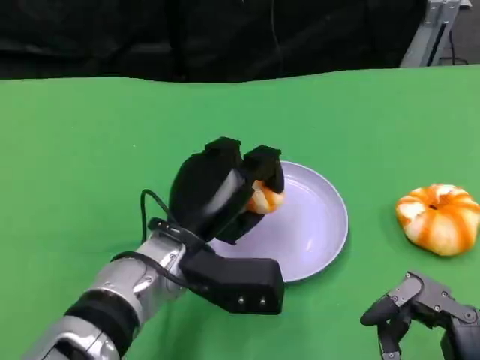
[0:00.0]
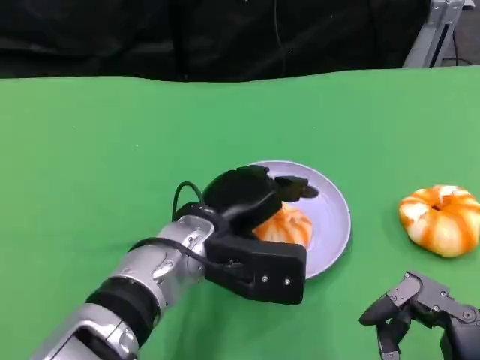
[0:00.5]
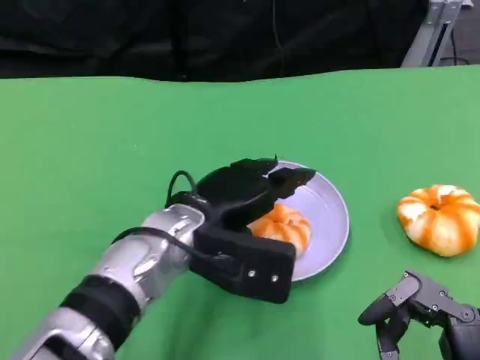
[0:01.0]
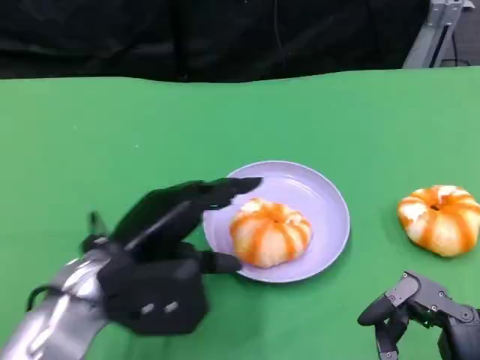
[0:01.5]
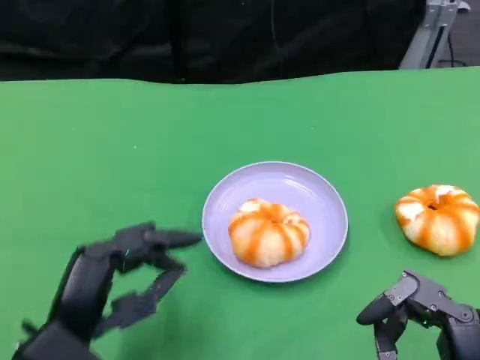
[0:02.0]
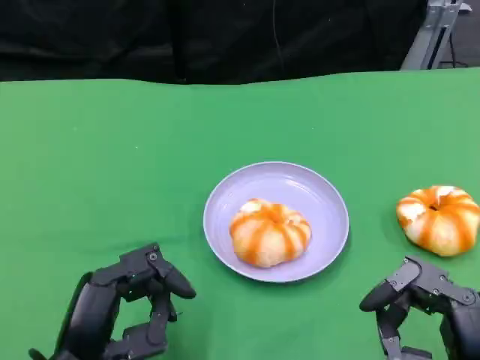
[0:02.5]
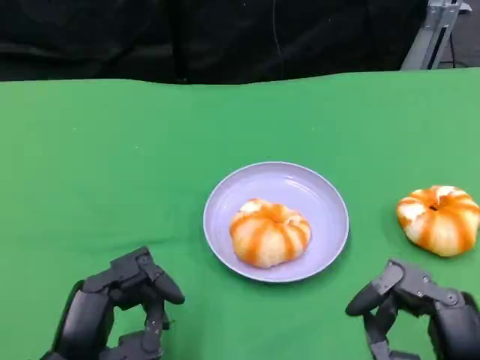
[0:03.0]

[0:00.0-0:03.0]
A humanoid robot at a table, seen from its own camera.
Task of the whole recording: Grasp the bread from the table and place it into the plate.
0:00.0 to 0:01.5: The left hand is displaced to the left by roughly 10 cm.
0:01.5 to 0:03.0: The left hand travels backward by approximately 10 cm.

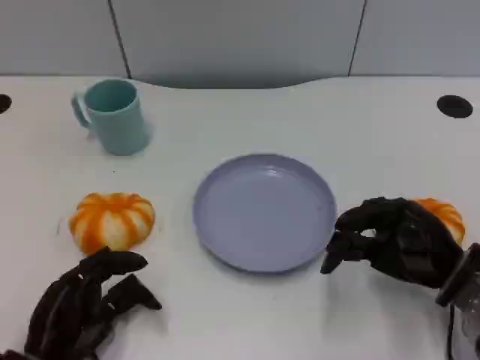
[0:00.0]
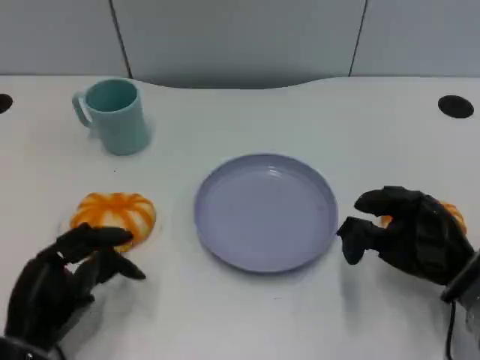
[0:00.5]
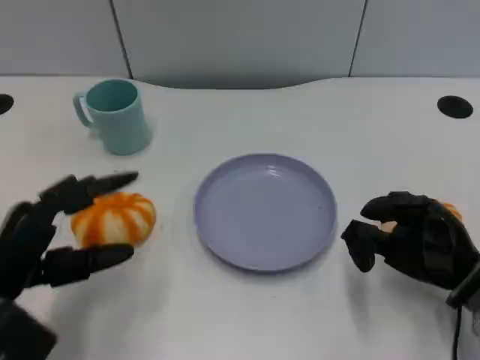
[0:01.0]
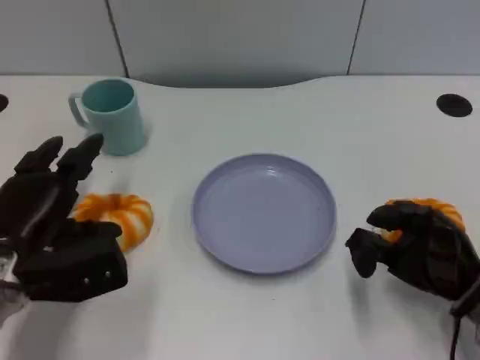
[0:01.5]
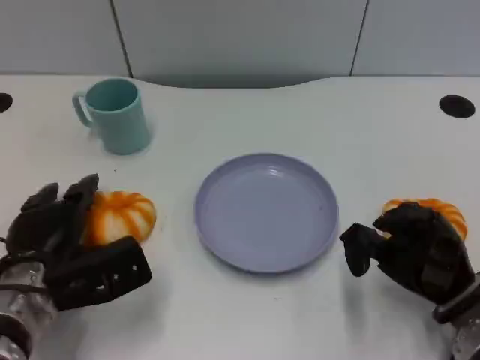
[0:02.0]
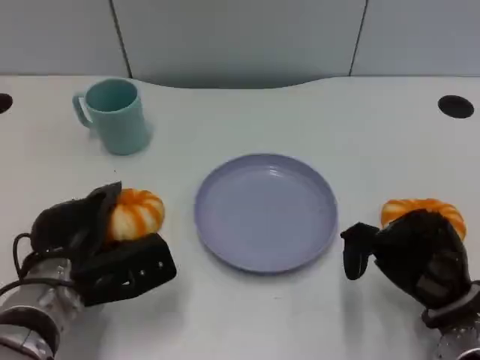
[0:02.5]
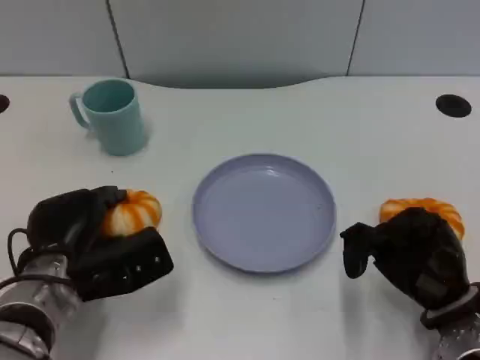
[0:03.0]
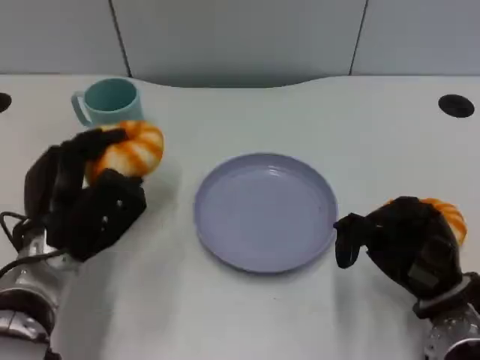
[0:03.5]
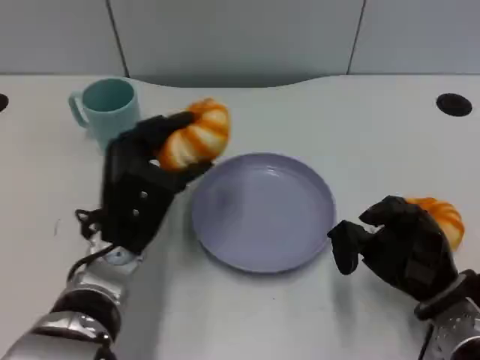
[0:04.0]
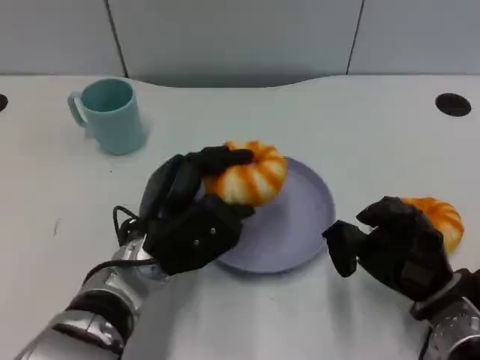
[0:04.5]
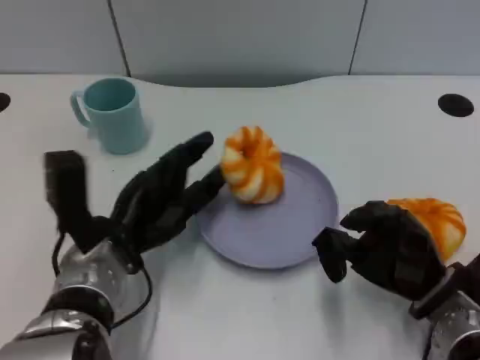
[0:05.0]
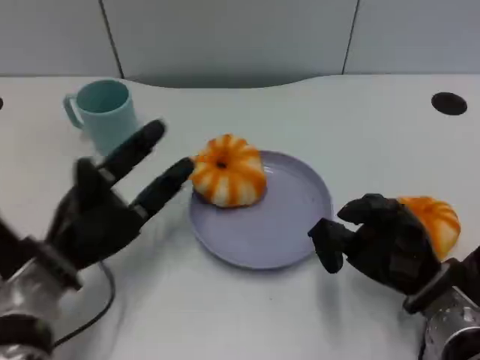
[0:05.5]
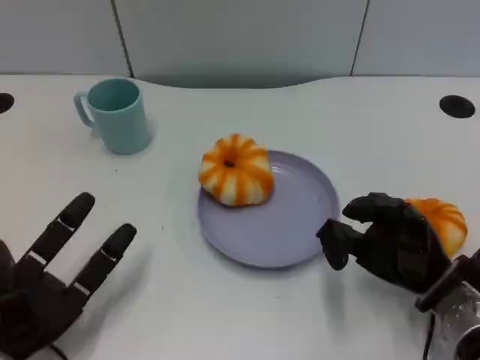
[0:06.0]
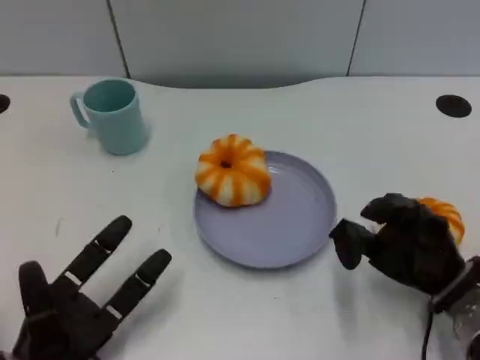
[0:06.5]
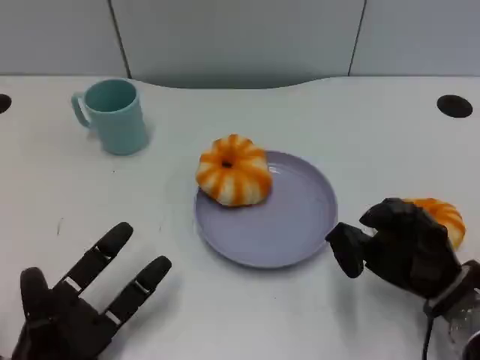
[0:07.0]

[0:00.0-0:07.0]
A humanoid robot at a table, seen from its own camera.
Task of the whole recording: Grasp the bread from the table and place it into the plate.
0:00.0 to 0:02.0: The left hand shifts about 10 cm forward.
0:05.0 to 0:07.0: The left hand shifts about 15 cm backward, to the left and downward.

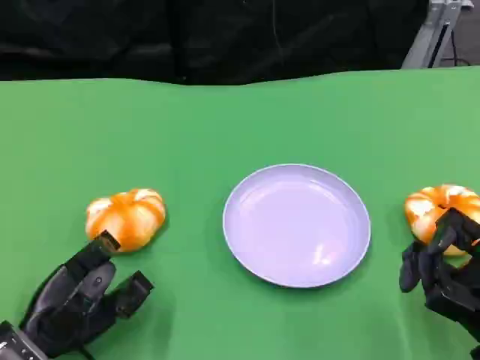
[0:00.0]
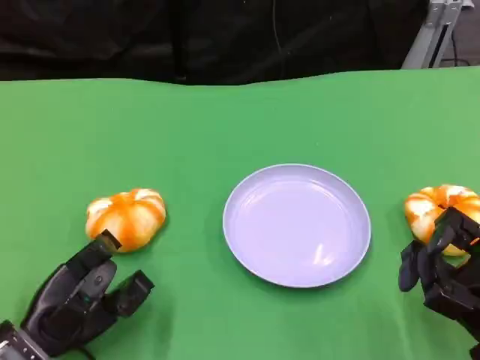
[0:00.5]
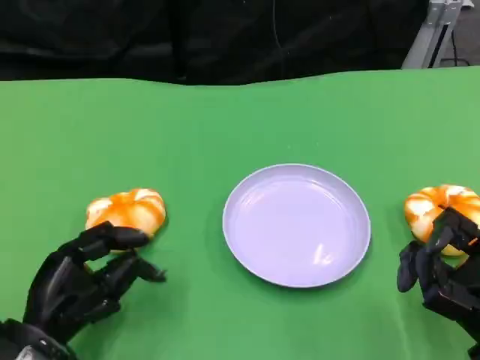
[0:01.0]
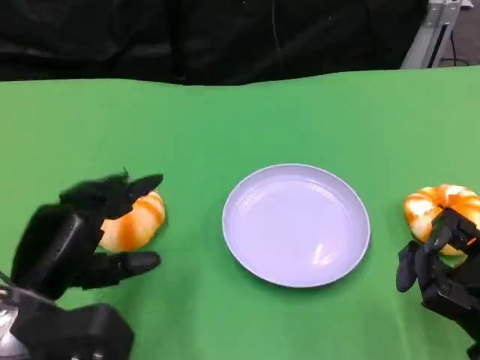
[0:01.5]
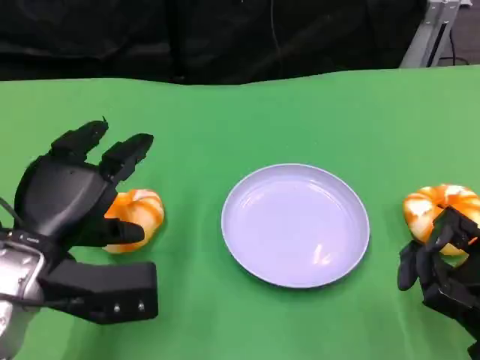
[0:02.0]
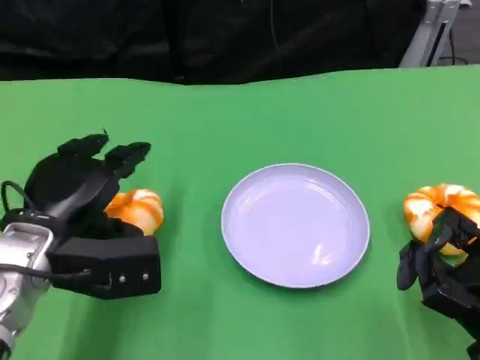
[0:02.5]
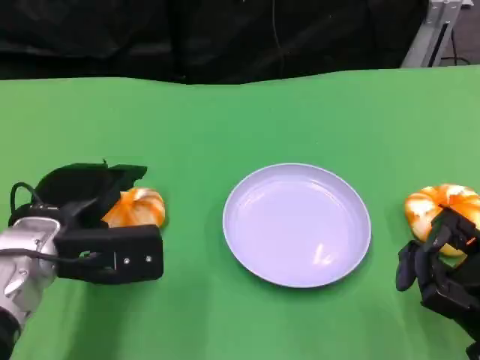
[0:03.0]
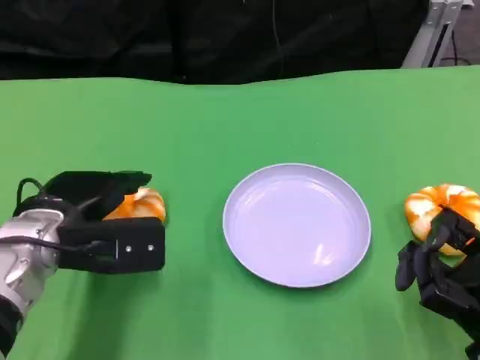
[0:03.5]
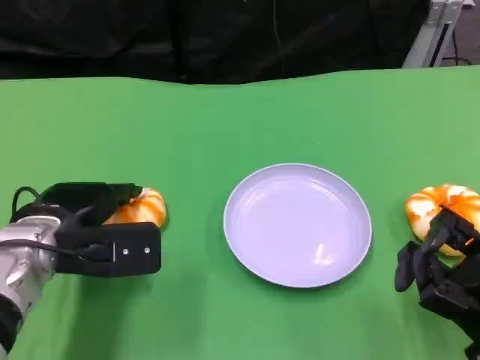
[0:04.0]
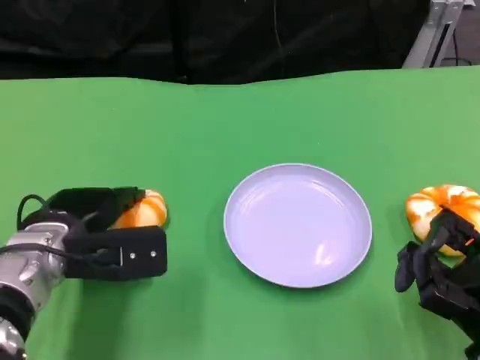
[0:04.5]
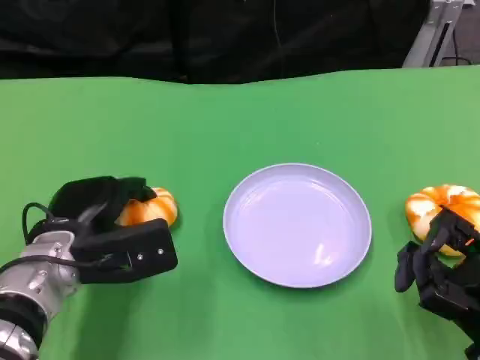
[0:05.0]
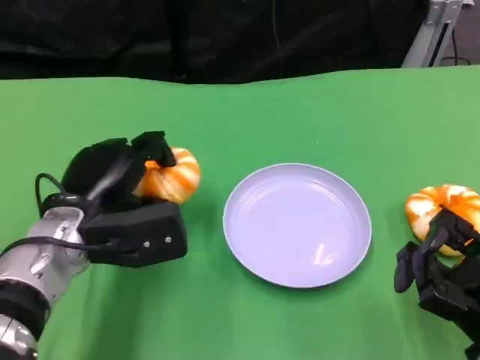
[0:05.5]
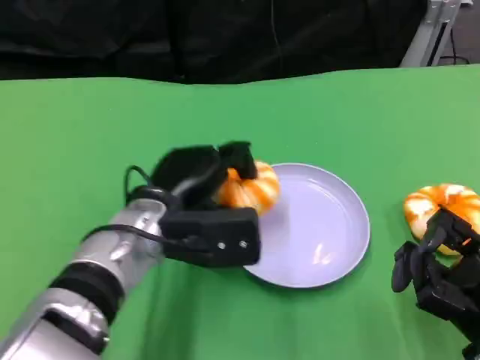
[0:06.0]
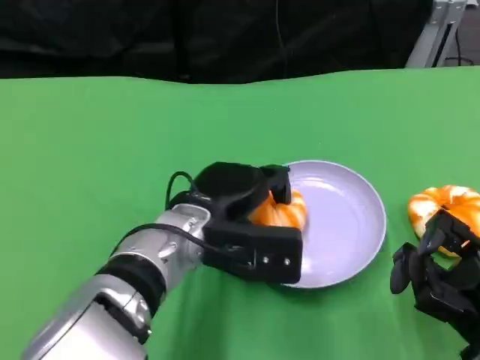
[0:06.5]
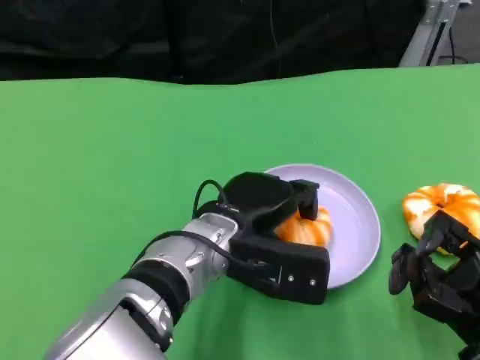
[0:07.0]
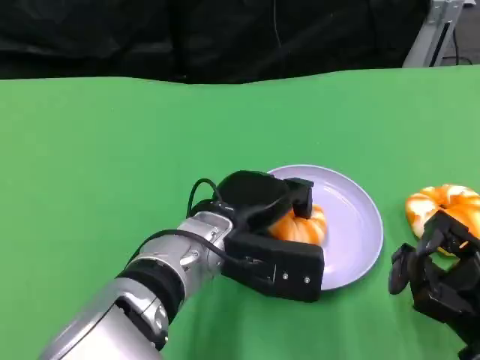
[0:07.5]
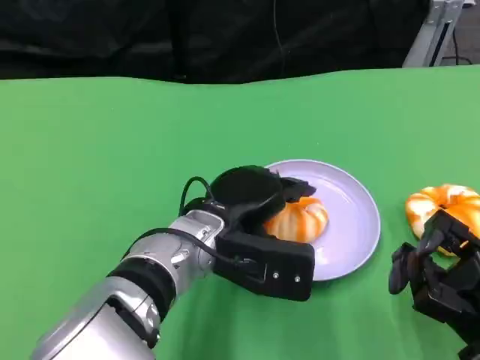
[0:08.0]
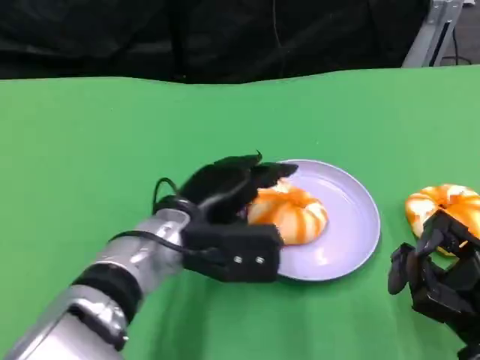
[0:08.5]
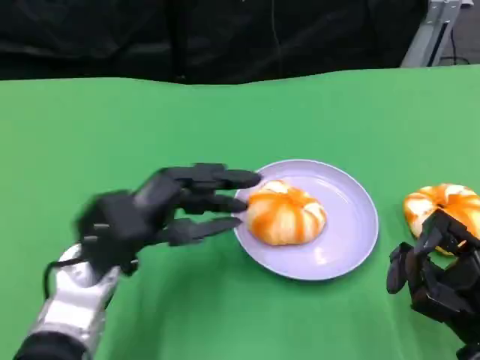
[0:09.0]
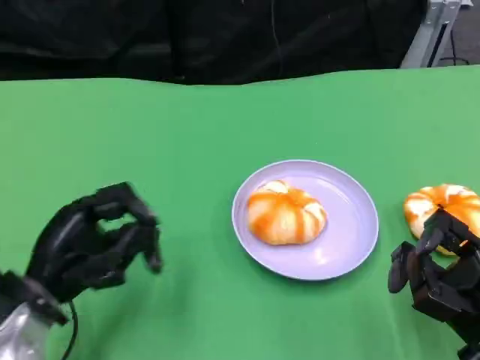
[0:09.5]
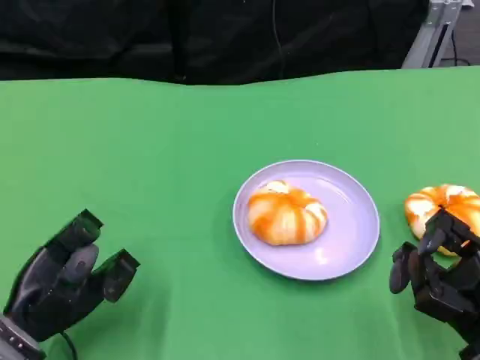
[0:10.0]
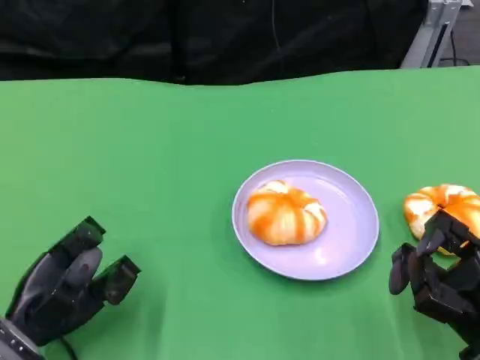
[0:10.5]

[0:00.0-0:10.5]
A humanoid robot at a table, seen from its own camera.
Task of the whole recording: Grasp the bread from the table and place it into the plate.
0:00.0 to 0:02.0: The left hand travels upward by approximately 10 cm.
0:02.0 to 0:04.0: The left hand changes place by about 5 cm.
0:04.0 to 0:06.5: The left hand moves to the right, some 15 cm.
0:06.5 to 0:08.5: The hands make only small movements.
0:08.5 to 0:10.5: The left hand heads to the left, downward and backward, covering some 20 cm.

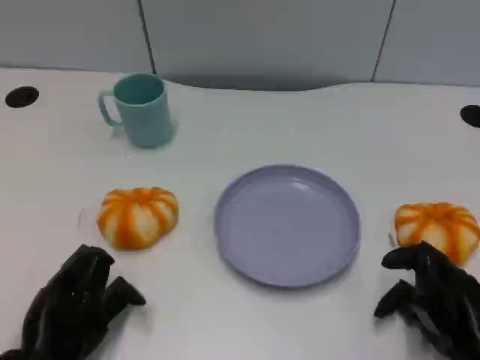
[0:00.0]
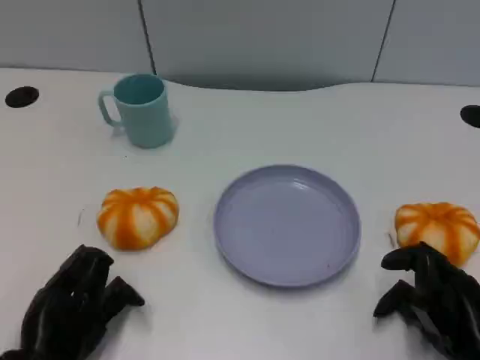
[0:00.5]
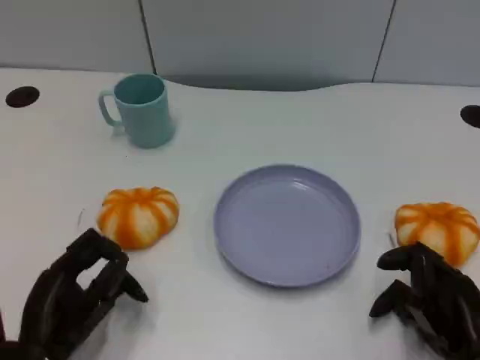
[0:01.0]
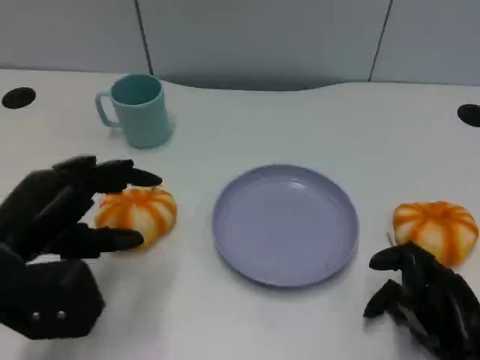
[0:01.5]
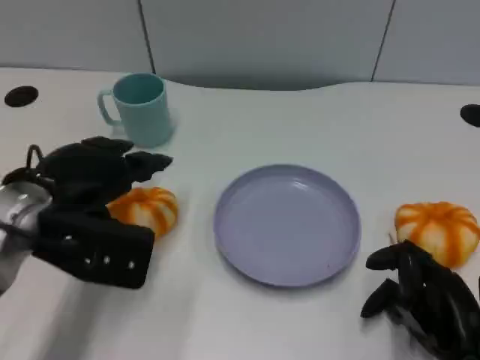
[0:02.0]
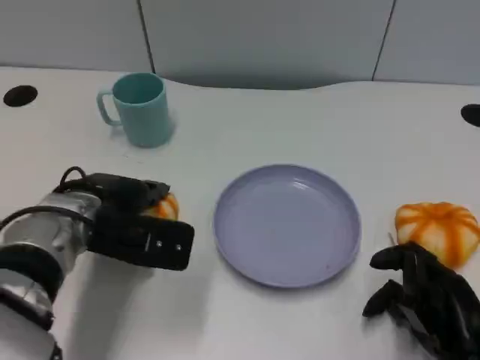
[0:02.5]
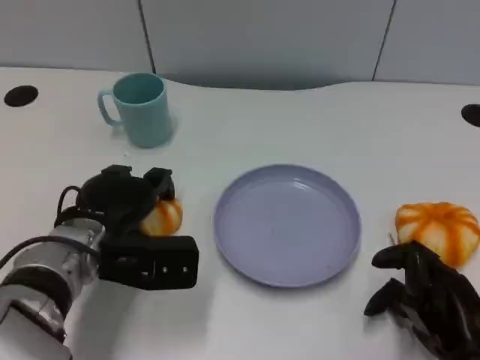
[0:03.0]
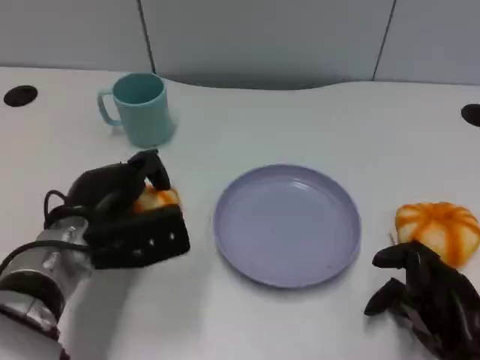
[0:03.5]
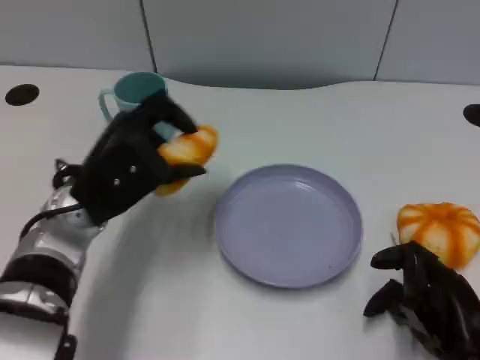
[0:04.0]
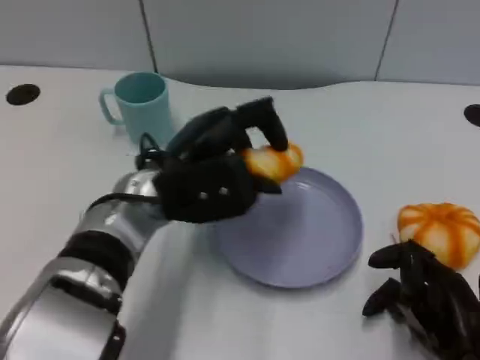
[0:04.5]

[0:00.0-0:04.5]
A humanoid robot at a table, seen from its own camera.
Task of the whole recording: Grasp the bread from the table and place it into the plate.
0:00.0 to 0:02.0: The left hand moves upward and forward, some 15 cm.
0:02.0 to 0:04.5: The left hand is displaced to the right by approximately 10 cm.
